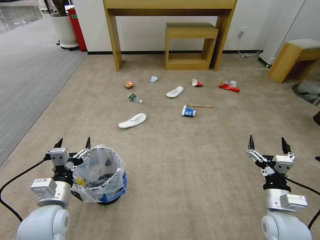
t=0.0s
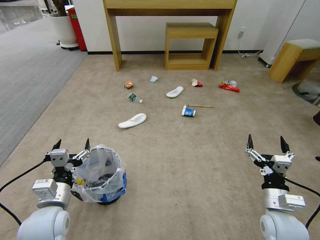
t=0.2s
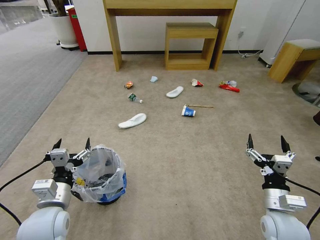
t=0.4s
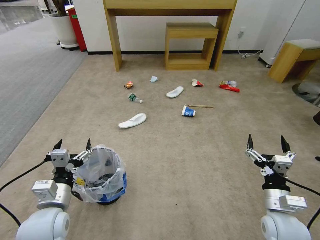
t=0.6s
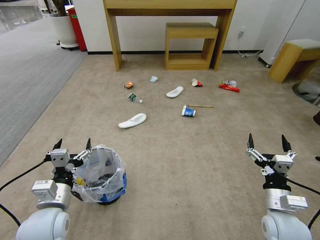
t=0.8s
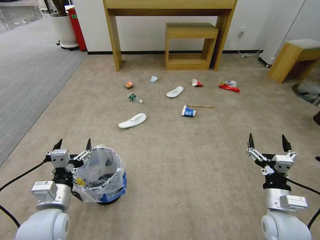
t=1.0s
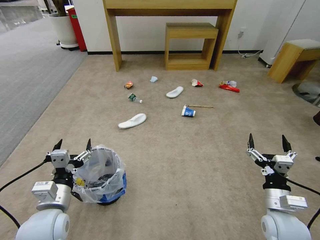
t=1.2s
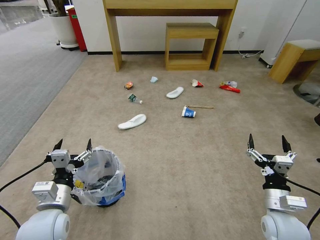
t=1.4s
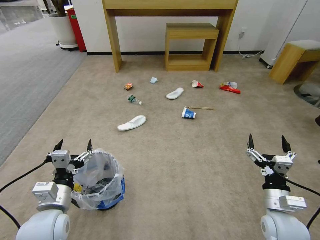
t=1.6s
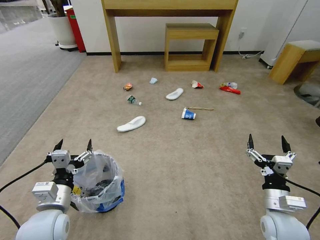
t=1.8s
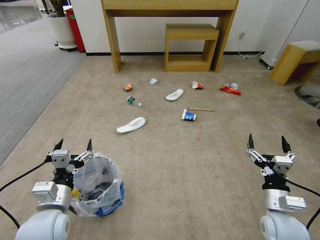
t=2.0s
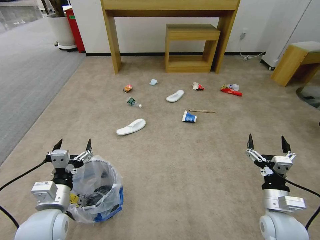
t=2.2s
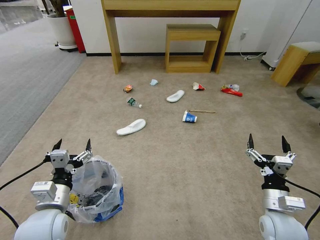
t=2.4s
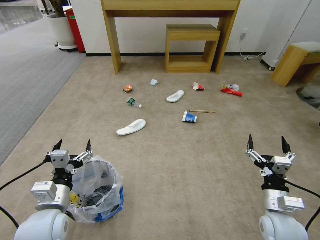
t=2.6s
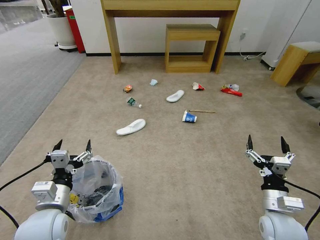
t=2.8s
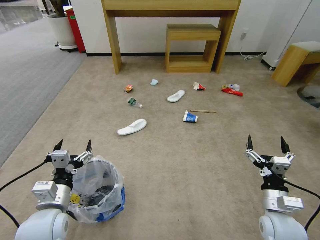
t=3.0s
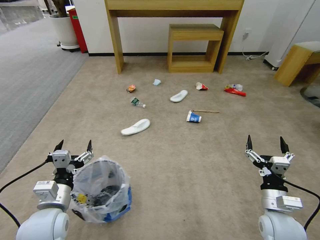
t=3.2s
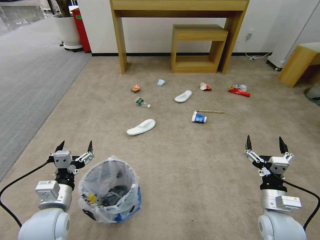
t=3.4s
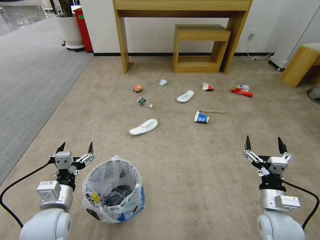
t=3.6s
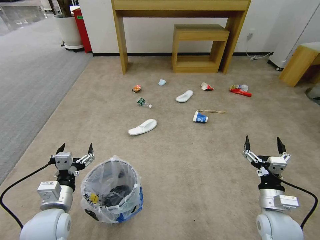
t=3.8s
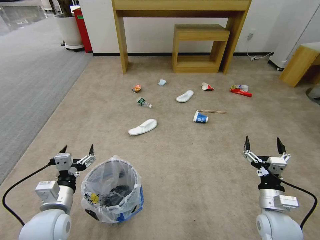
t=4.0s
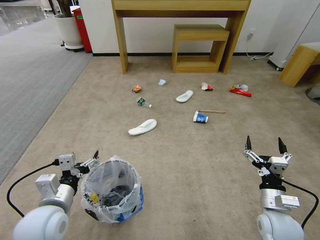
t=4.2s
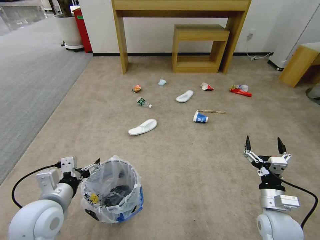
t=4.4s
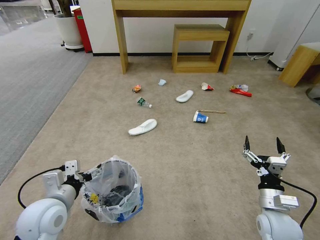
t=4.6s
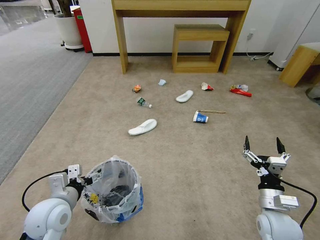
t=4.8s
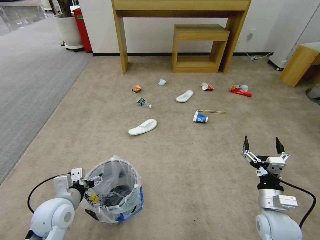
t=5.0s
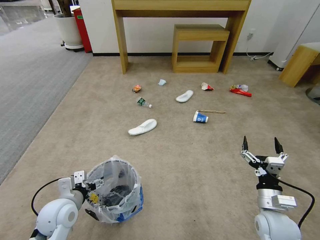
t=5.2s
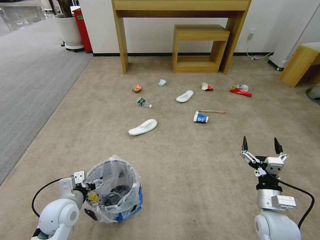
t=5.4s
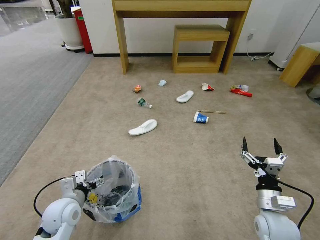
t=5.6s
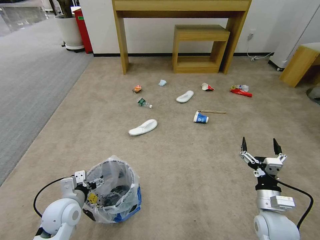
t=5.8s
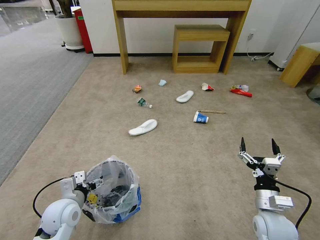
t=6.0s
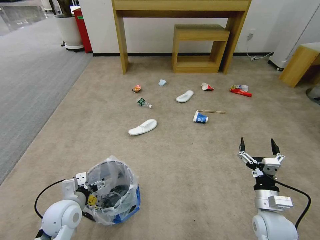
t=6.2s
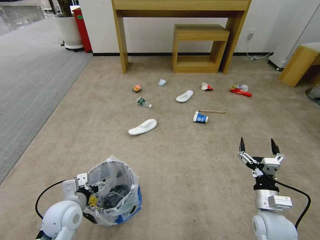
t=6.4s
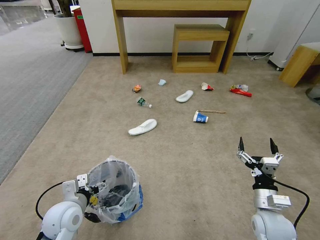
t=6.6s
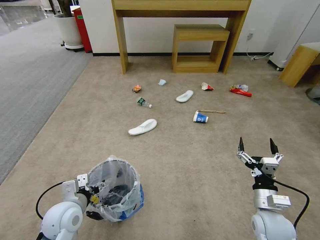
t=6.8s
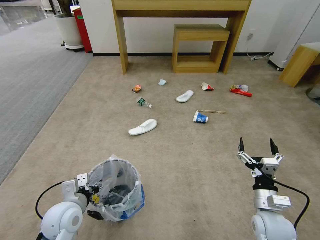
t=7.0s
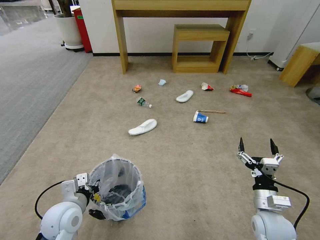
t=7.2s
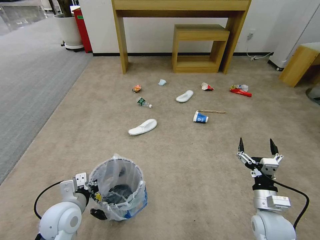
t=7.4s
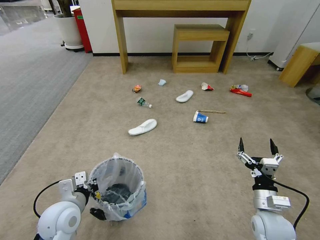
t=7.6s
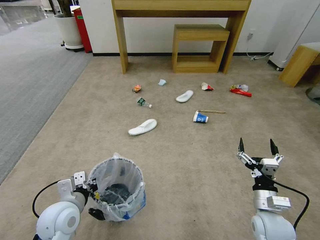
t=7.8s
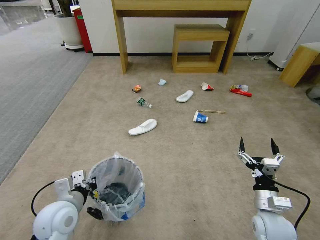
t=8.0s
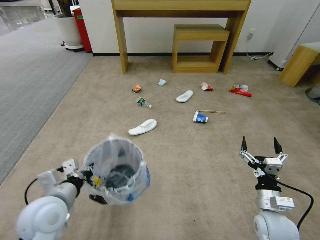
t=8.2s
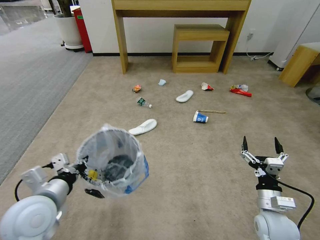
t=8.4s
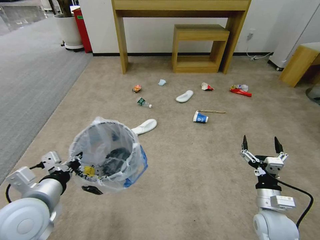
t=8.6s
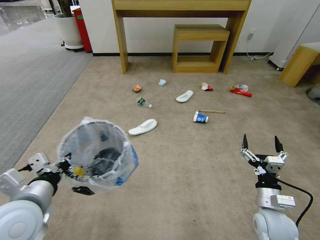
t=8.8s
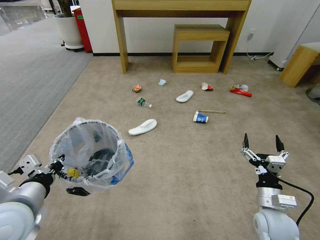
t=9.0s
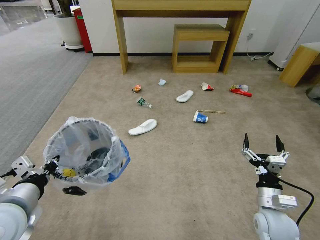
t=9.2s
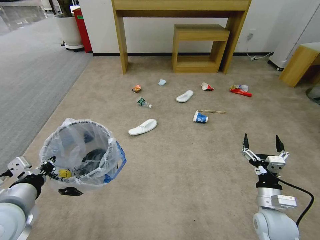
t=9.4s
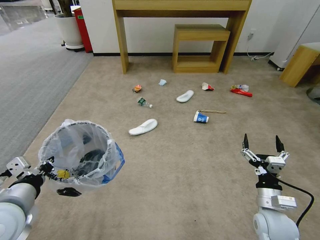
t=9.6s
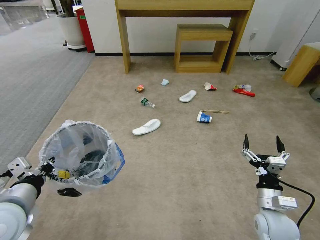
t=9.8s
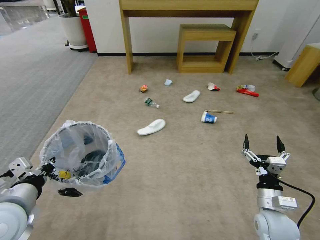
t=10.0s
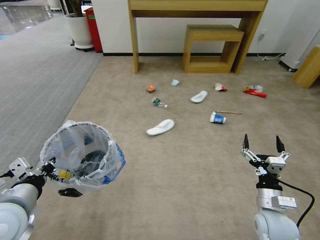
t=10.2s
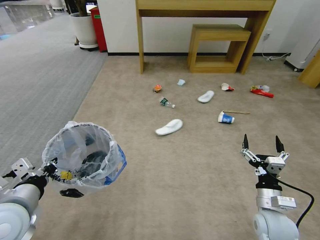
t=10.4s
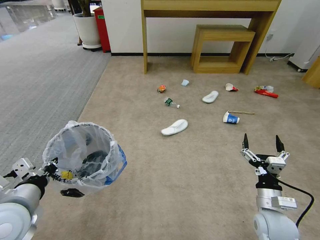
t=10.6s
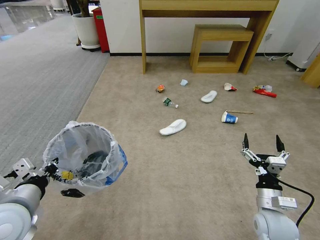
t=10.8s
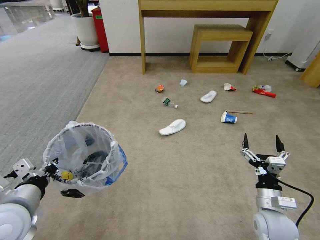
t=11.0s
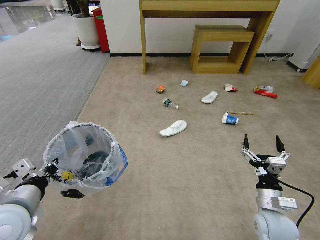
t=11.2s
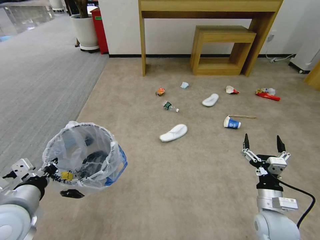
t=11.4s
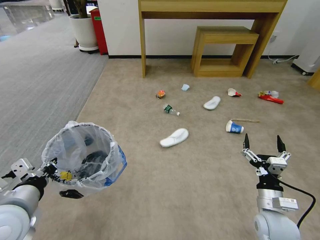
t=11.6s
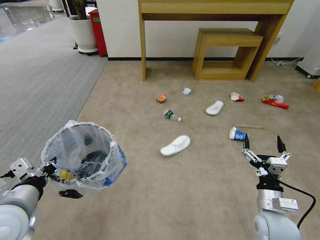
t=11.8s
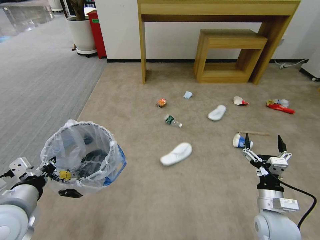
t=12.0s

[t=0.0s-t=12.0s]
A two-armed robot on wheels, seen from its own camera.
Task of the whole recording: Pick up the trash bin and place the garbage on the floor into it.
t=1.6s to t=3.0s: Both grippers stay about where they are.
t=4.4s to t=6.0s: The left gripper moves downward, some 10 cm.
t=6.0s to t=7.6s: The left gripper closes its fingers.
t=7.6s to t=9.0s: The left gripper heads upward, covering some 15 cm.
t=10.4s to t=12.0s: Both grippers stay put.

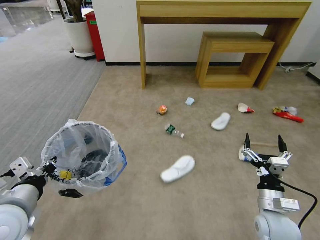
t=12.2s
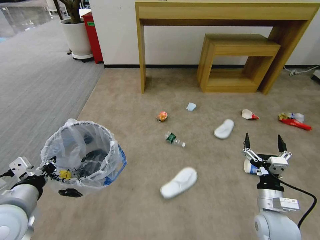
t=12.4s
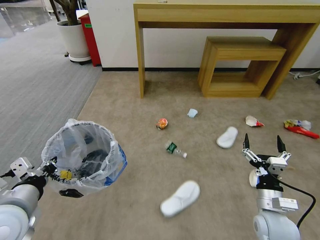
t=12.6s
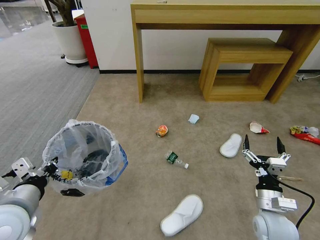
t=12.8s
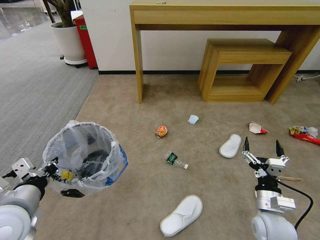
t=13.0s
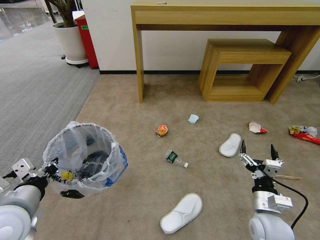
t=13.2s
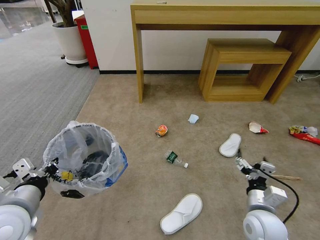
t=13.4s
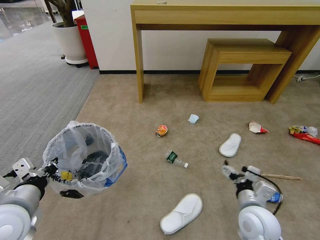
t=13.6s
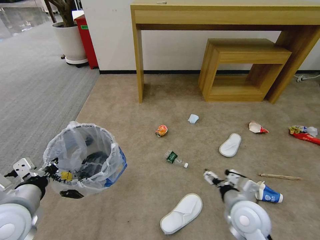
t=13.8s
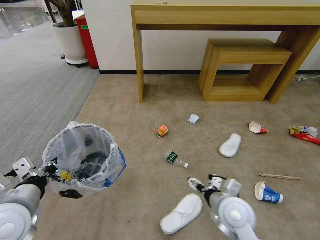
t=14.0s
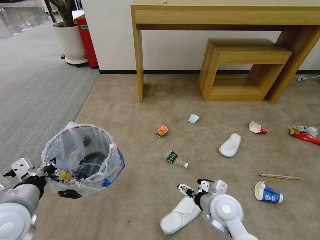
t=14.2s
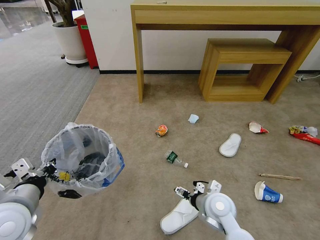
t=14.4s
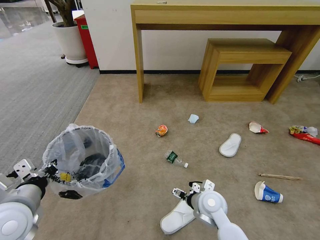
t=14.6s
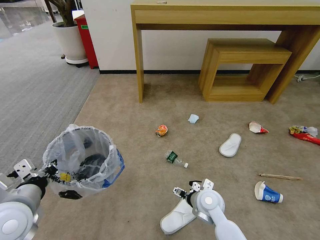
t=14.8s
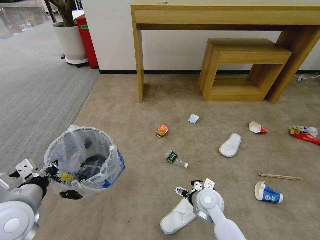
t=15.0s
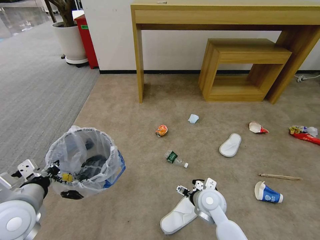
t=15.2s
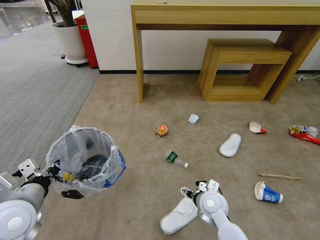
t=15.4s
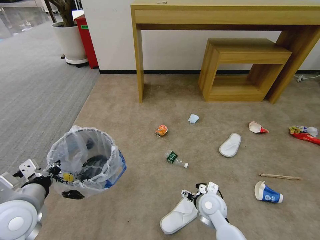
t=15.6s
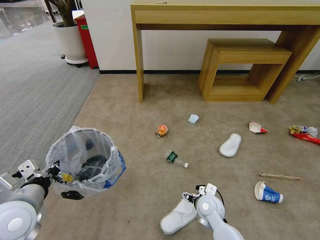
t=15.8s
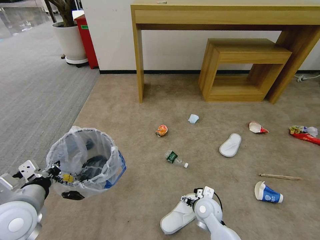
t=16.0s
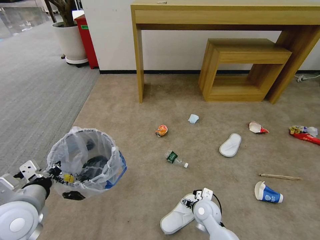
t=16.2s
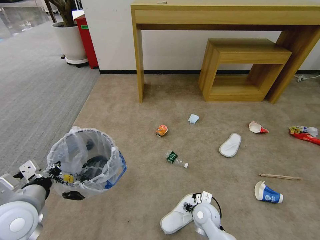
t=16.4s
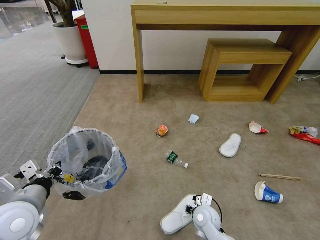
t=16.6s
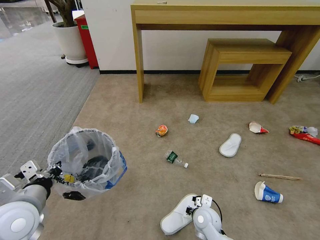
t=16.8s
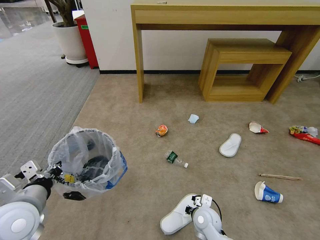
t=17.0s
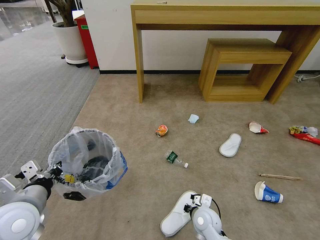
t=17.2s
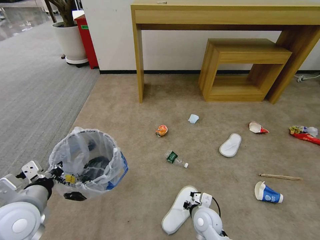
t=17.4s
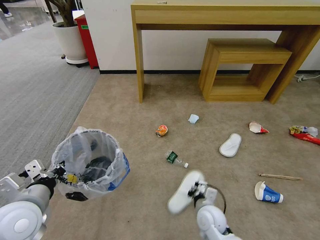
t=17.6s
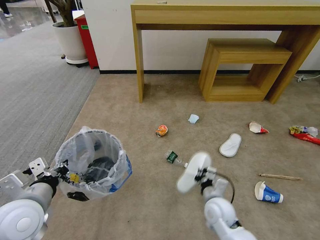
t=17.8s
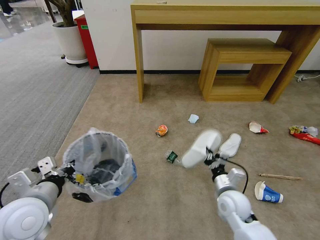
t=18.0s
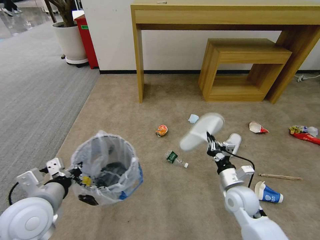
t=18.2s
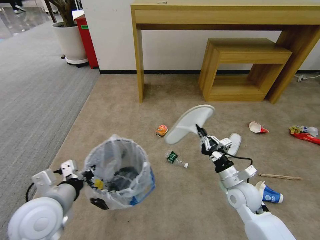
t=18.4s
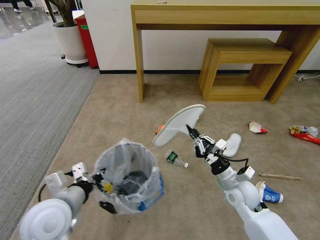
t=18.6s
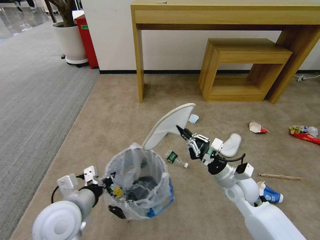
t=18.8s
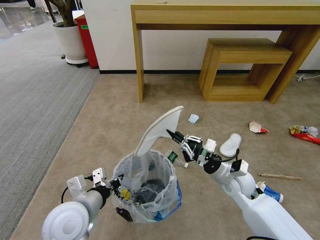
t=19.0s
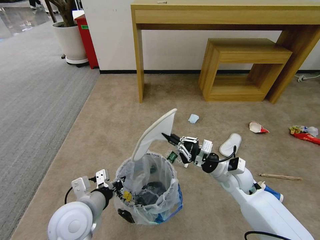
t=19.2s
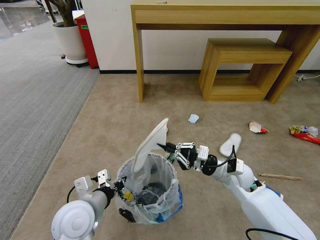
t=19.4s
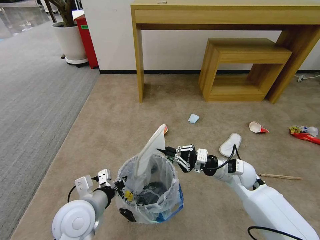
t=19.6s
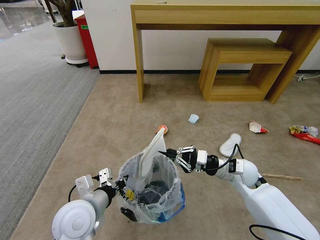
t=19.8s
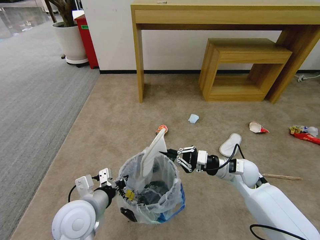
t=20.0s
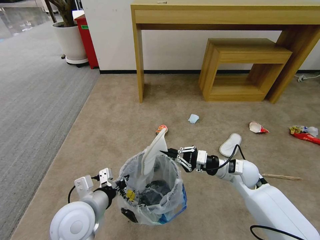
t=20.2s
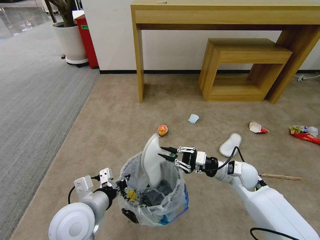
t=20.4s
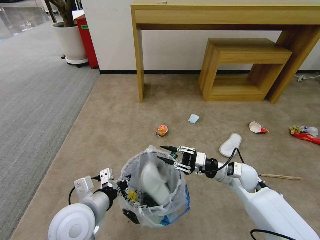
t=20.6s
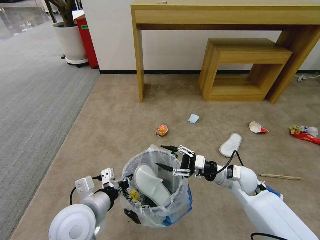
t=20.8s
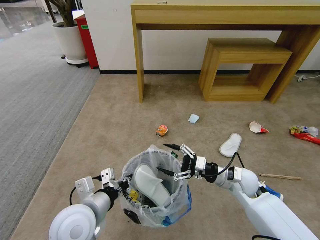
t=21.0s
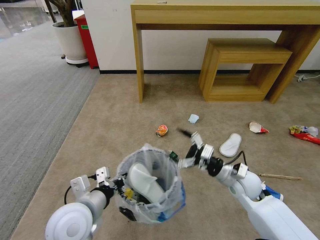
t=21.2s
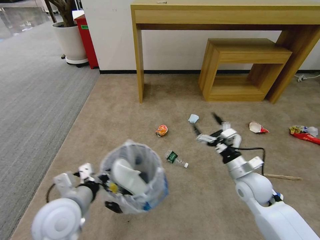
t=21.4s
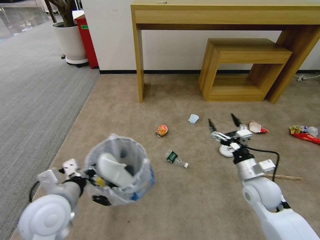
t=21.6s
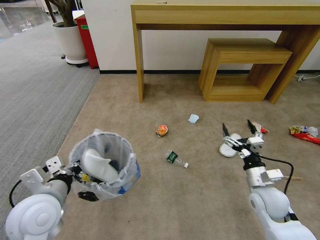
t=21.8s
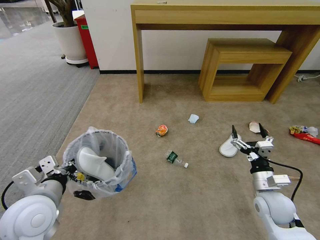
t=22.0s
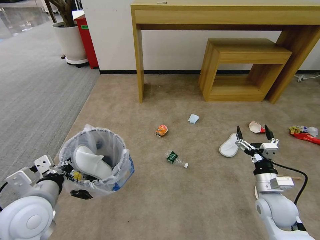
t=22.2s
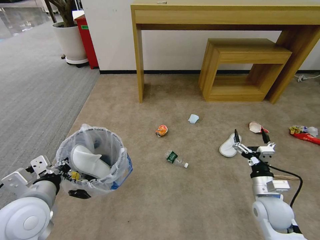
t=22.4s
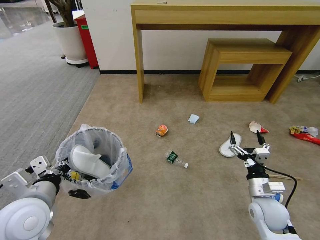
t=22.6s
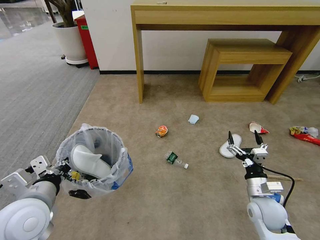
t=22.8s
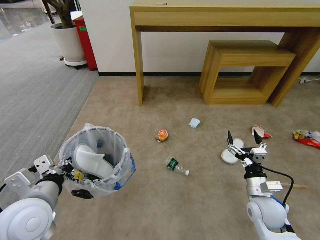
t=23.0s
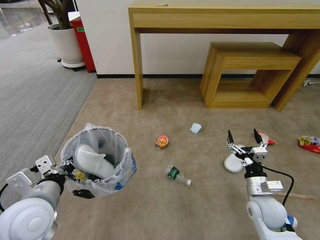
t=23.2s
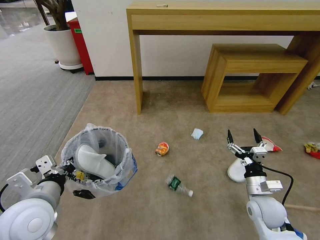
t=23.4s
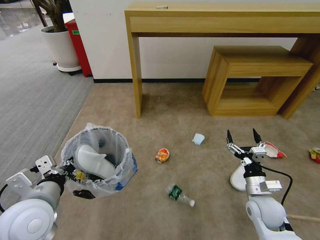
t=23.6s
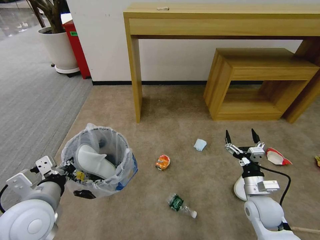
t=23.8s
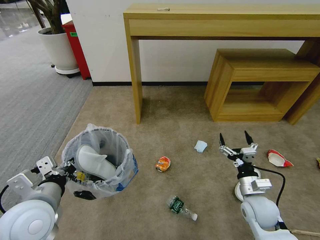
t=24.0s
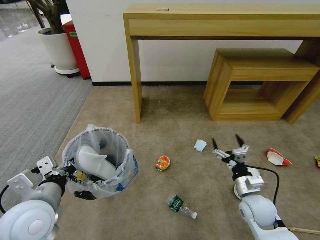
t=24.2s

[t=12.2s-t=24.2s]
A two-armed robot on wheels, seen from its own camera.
Task of the whole recording: Pick up the trash bin and place the garbage on the floor into it.
t=12.2s to t=13.8s: The right gripper is displaced to the left by some 10 cm.
t=13.8s to t=15.2s: The right gripper is displaced downward, forward and to the left by about 15 cm.
t=15.2s to t=16.6s: The right gripper shifts about 5 cm downward, and closes up.
t=16.6s to t=18.2s: The right gripper moves upward and to the right, roughly 15 cm, and closes up.
t=18.2s to t=19.8s: The left gripper heads to the right, covering roughly 10 cm. Meanwhile the right gripper goes approximately 10 cm forward and upward.
t=19.8s to t=21.2s: The right gripper opens.
t=21.2s to t=22.6s: The right gripper goes roughly 10 cm backward and to the right; the left gripper travels to the left by about 10 cm.
